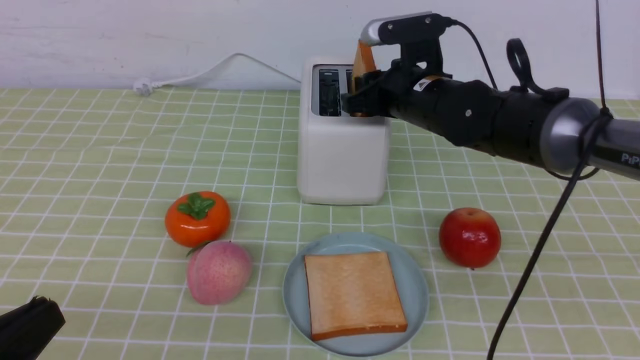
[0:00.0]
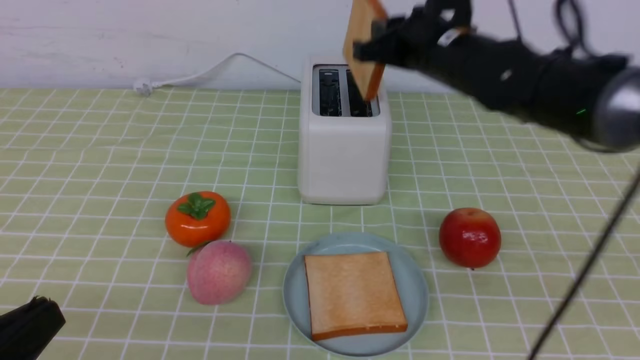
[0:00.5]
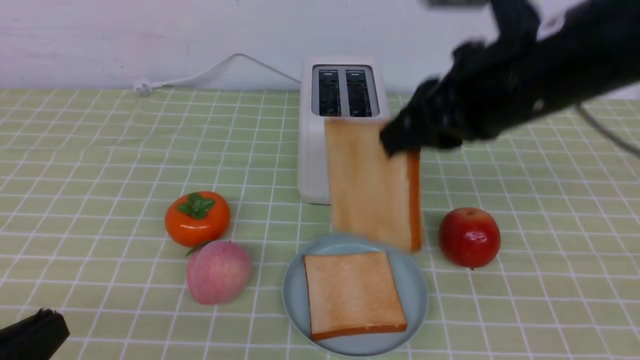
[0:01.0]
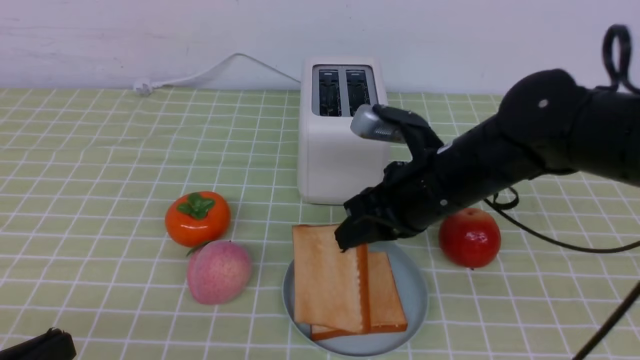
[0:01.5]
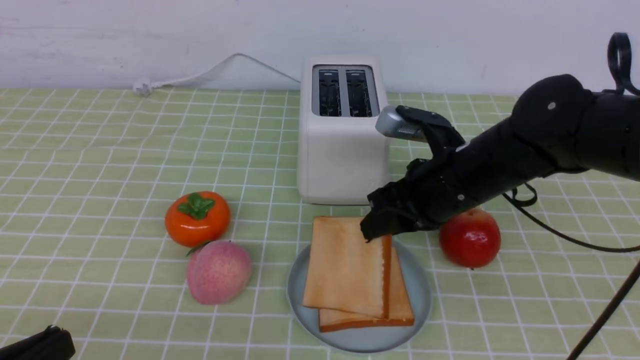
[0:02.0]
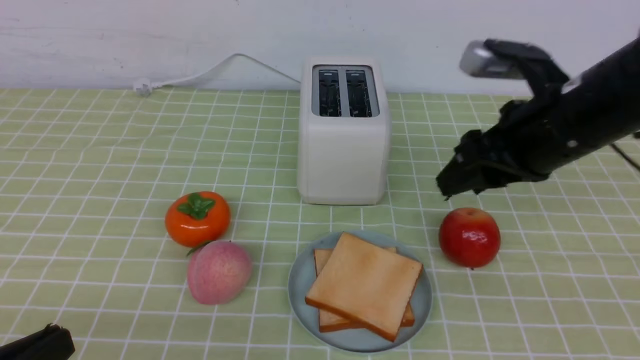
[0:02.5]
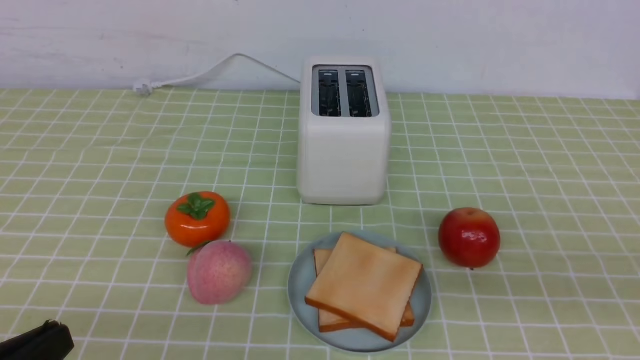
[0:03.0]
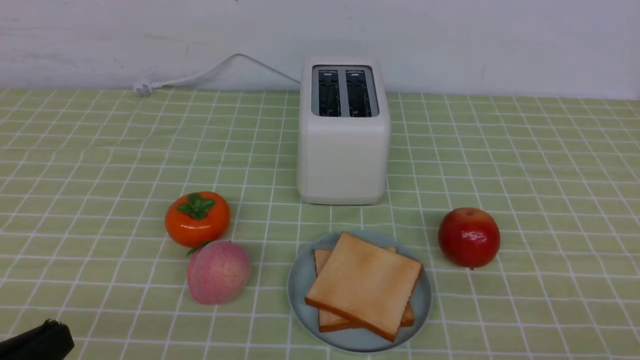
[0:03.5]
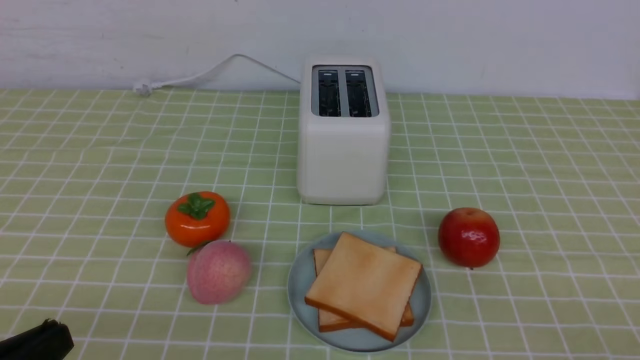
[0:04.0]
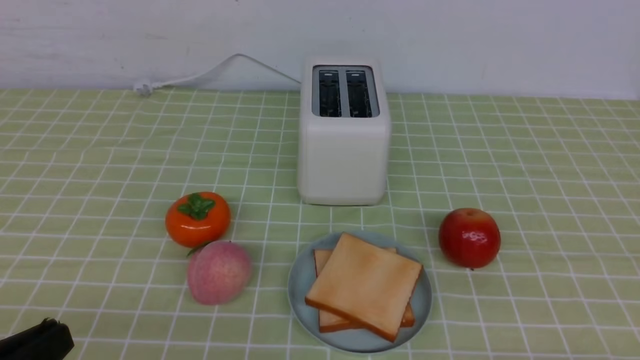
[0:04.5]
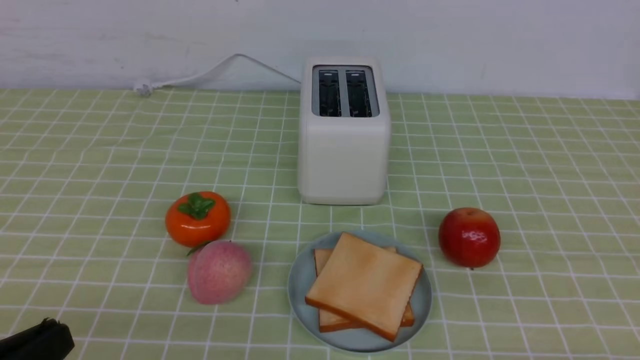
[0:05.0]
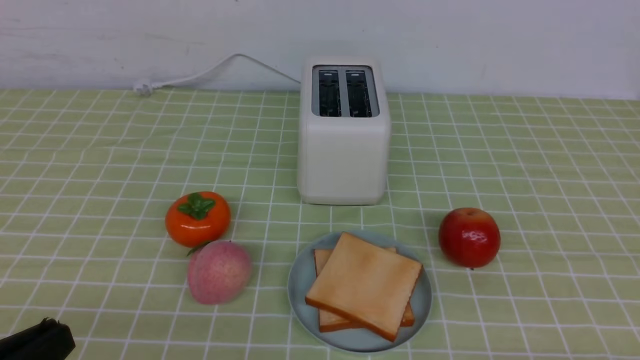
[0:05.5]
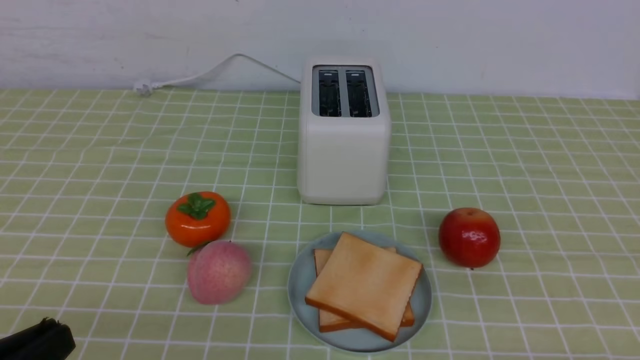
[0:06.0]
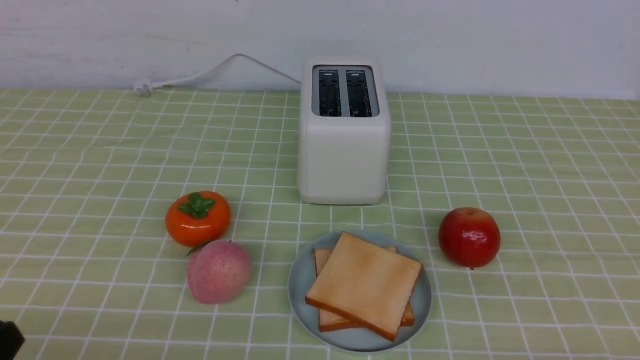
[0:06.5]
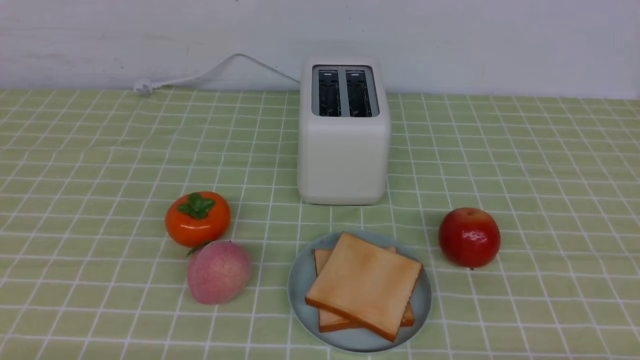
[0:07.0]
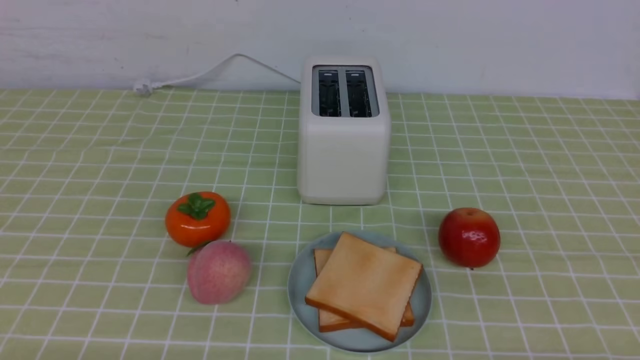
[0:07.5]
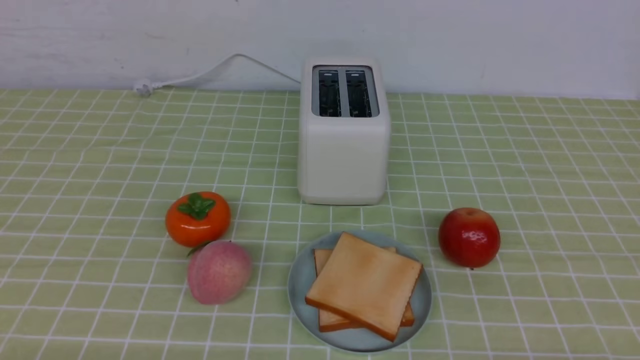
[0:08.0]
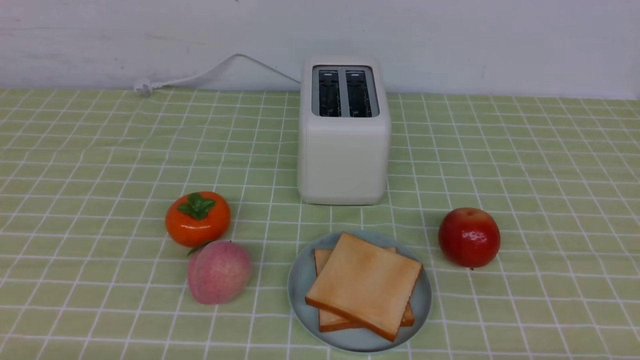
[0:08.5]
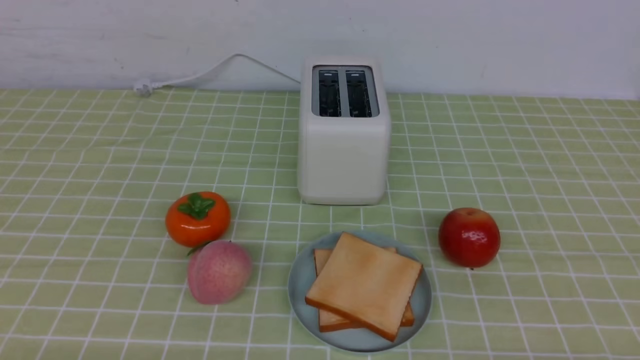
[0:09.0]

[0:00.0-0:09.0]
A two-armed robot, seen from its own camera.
Task of the whole recording: take toasted bread from bread machine on green coffee tablecloth place on plate.
Step, 0:01.0 to 0:02.0: use the right arm to put a slice of bread into the plate.
0:00.0 to 0:02.0: The right gripper travels backward by roughly 10 cm, reaches roughly 10 cm upward, then returns, and closes its fingers.
0:02.0 to 0:04.5: The right gripper moves backward and to the right, roughly 35 cm, and closes up.
0:04.5 to 0:07.0: The left gripper travels downward by some 10 cm.
0:07.0 to 0:09.0: Both grippers stay about where they are.
